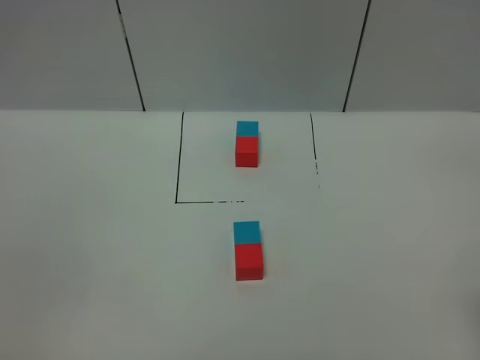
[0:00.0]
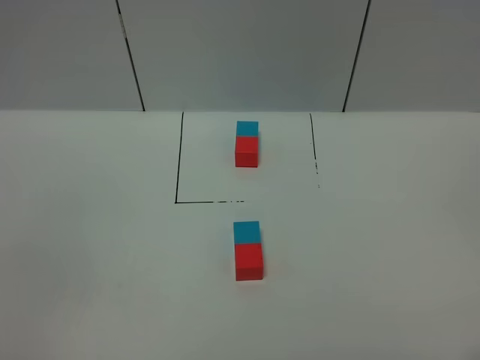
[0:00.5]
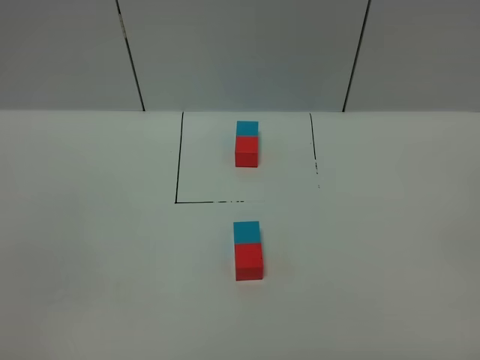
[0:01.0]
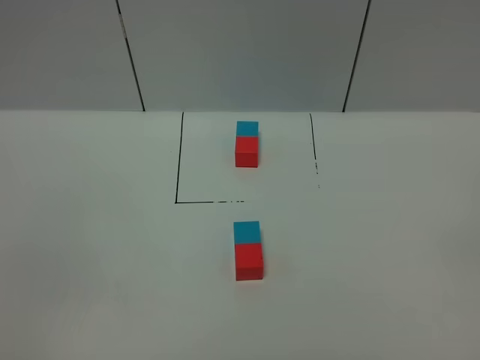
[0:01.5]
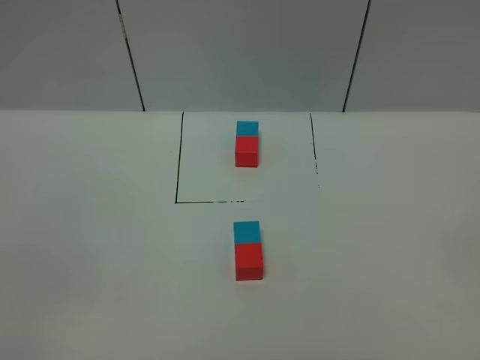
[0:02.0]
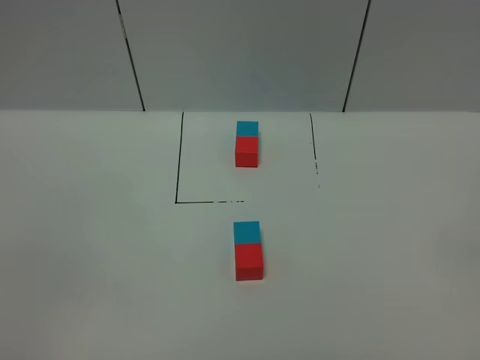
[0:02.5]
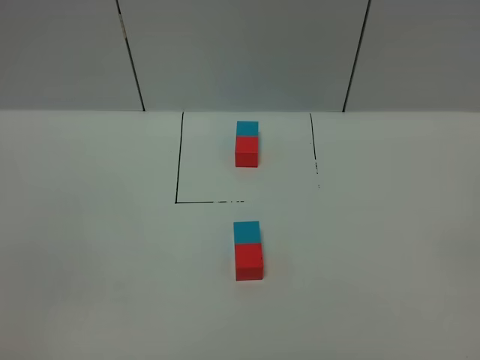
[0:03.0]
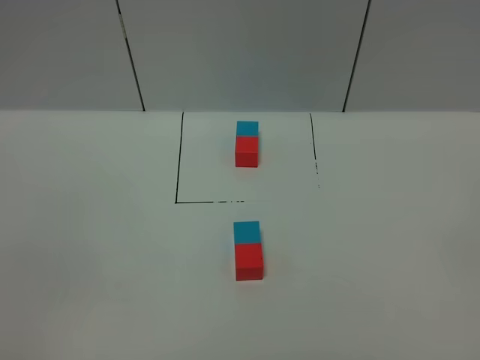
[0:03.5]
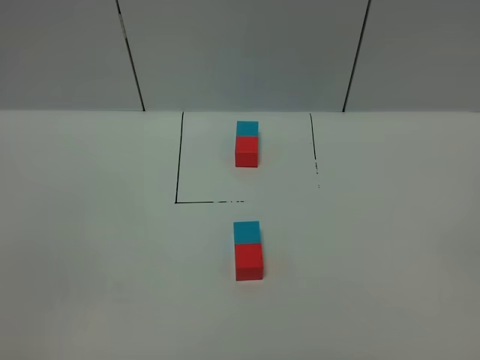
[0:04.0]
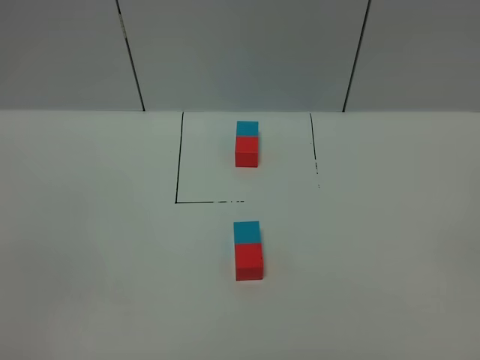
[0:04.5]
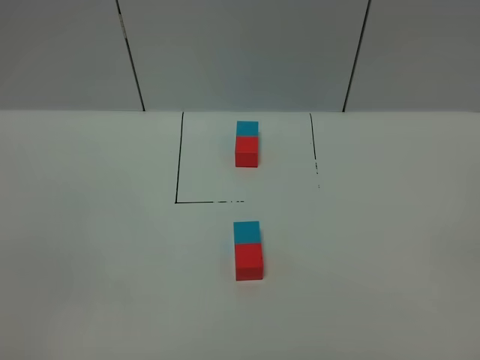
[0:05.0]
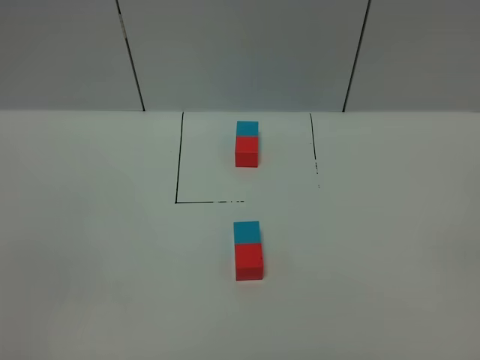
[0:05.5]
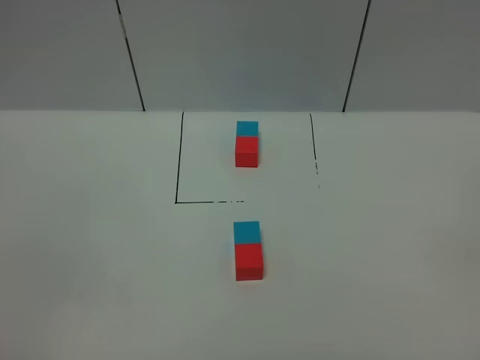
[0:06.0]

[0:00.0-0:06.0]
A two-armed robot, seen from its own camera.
Task of the whole recording: According to the building block template in front, assemble the scattered blocks together.
0:02.0 to 0:06.0: Both grippers stay put.

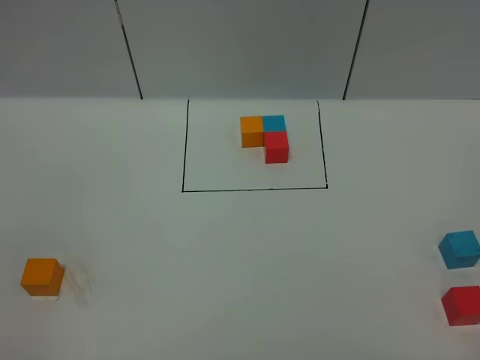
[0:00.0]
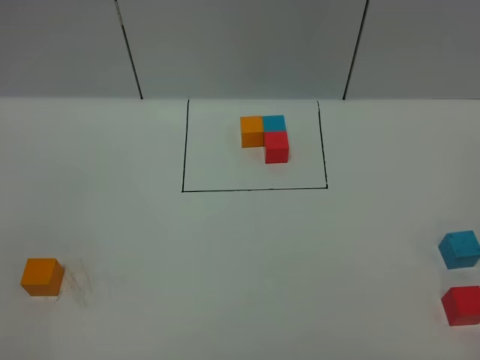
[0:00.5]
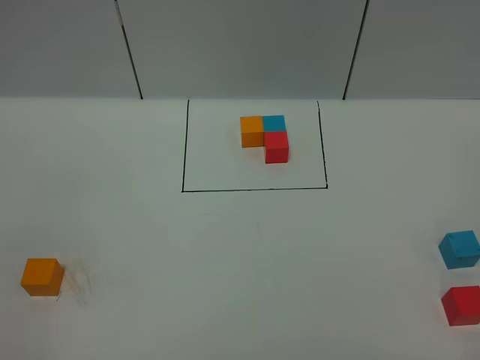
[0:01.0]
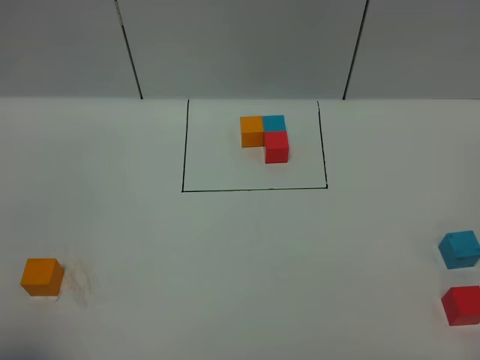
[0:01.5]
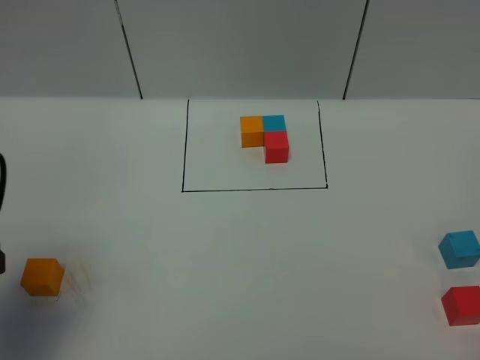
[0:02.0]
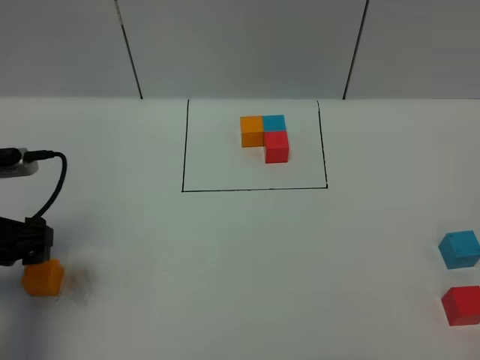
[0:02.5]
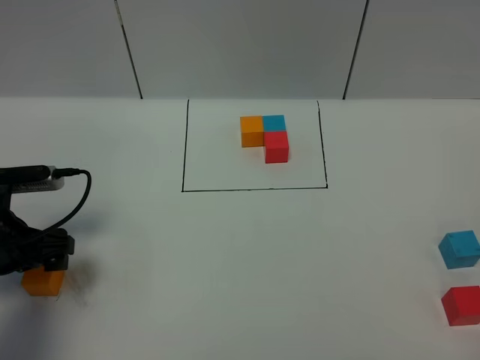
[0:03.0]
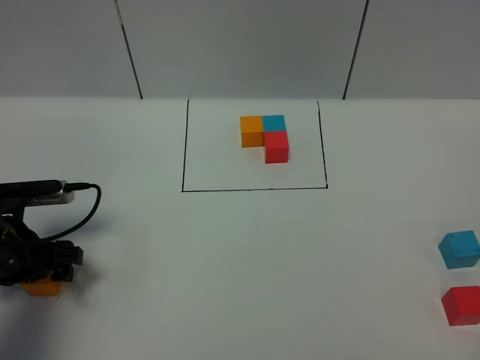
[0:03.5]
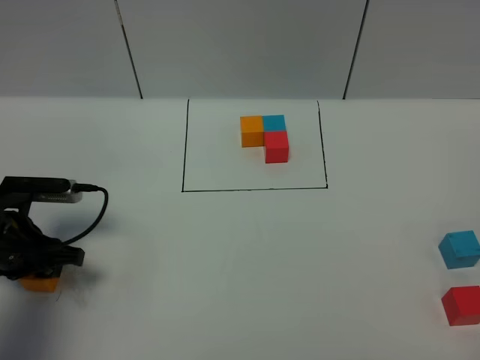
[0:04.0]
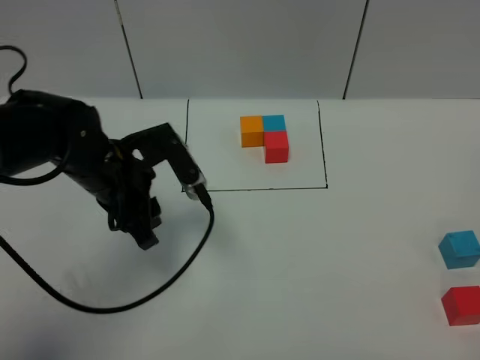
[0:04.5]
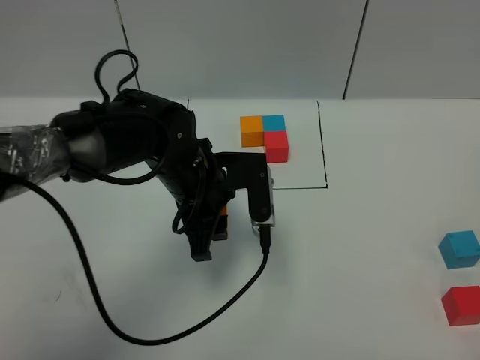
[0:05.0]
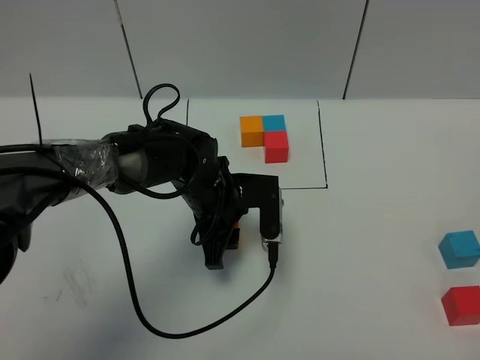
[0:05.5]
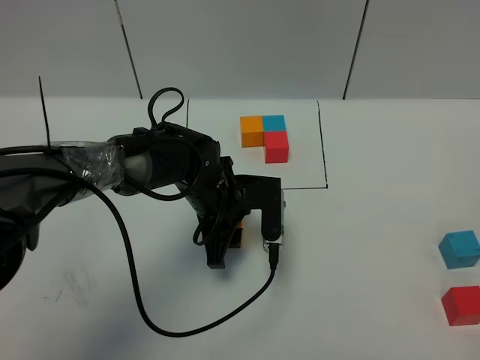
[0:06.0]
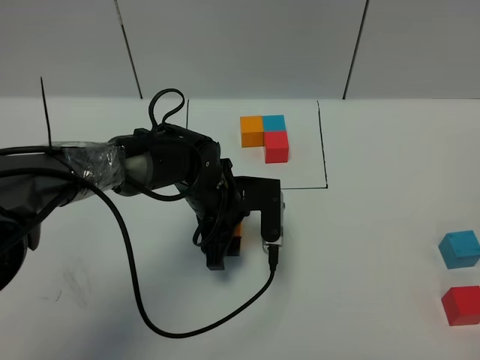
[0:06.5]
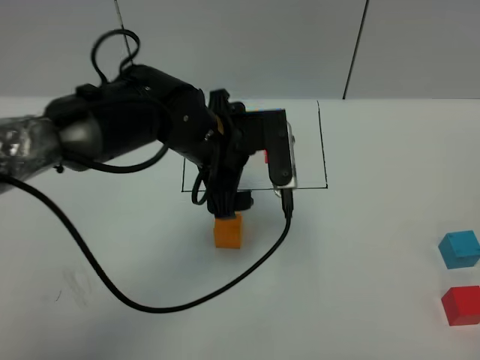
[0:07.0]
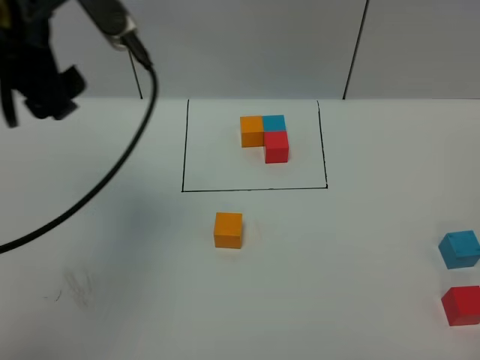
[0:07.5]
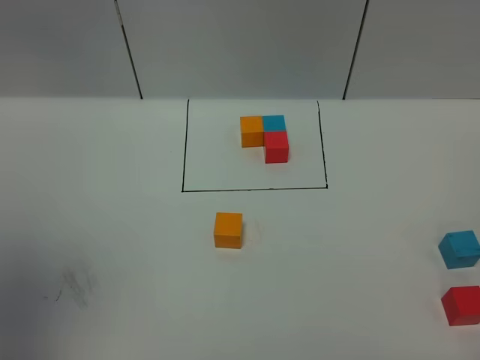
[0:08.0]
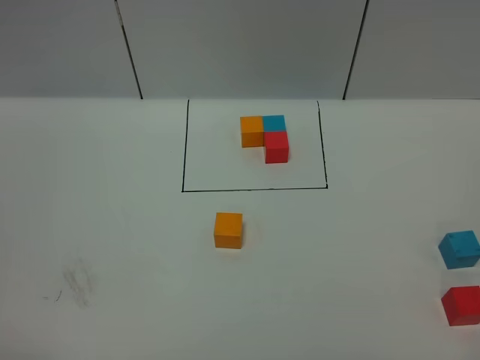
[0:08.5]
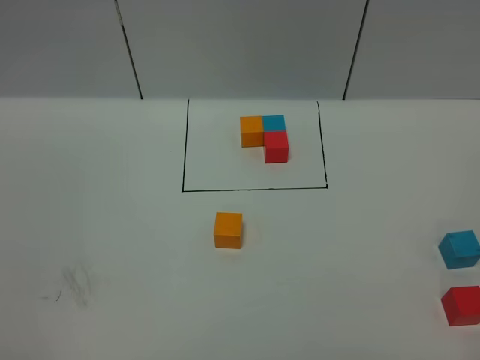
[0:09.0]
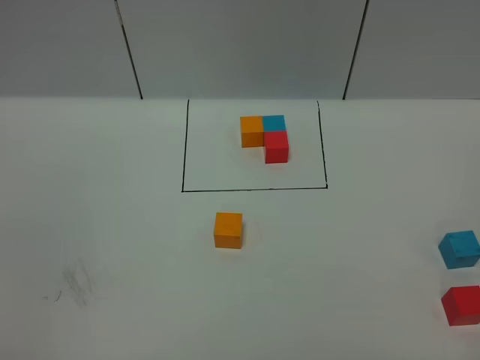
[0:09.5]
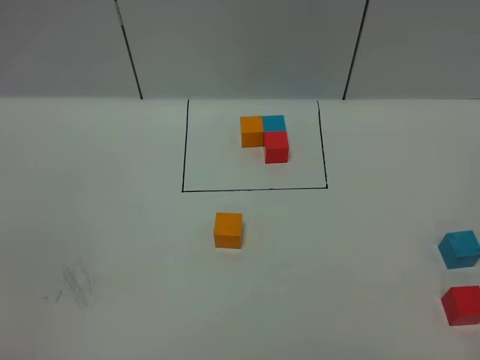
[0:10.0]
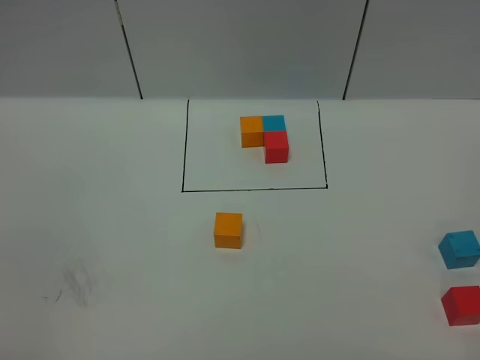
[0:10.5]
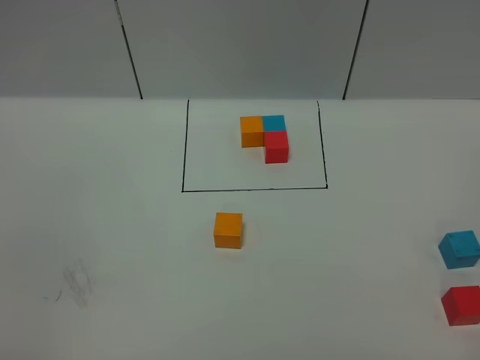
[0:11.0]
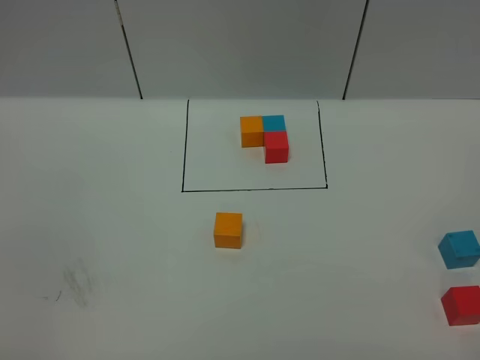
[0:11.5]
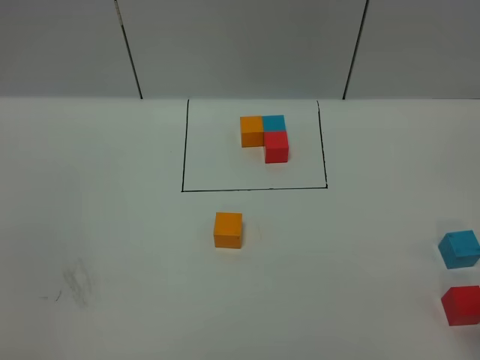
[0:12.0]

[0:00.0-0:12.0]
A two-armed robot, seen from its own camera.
Task of the whole recording: According to the building block template in front, assemble the scattered blocks together.
Step, 0:02.0 to 0:07.0: Put the orange cube in the center of the table.
0:00.0 to 0:02.0: The left gripper is displaced forward by approximately 20 cm, and opens up.
0:02.0 to 0:04.0: The left gripper goes roughly 20 cm downward and forward, and closes up.
0:04.0 to 0:06.0: The left gripper heads to the right, covering roughly 25 cm.
0:06.0 to 0:08.0: The left gripper heads upward, to the left and backward, covering about 50 cm, and opens up.
0:08.0 to 0:10.0: The left gripper heads downward and backward, covering some 25 cm.

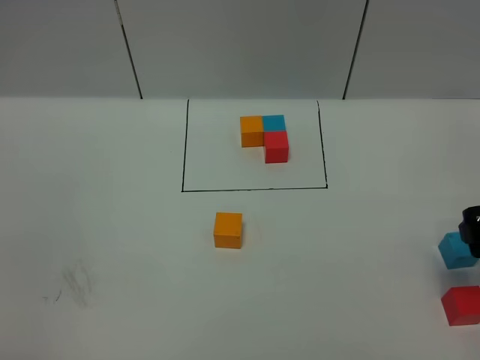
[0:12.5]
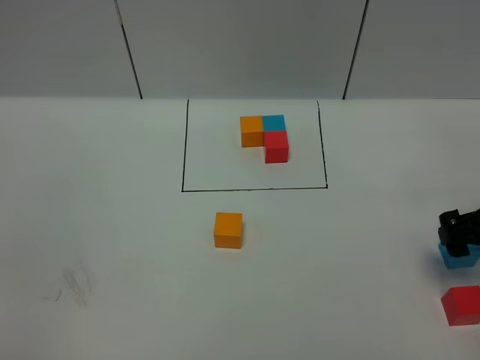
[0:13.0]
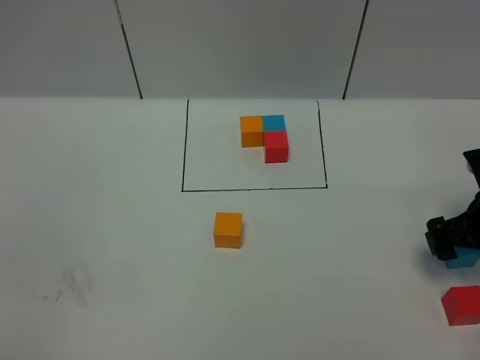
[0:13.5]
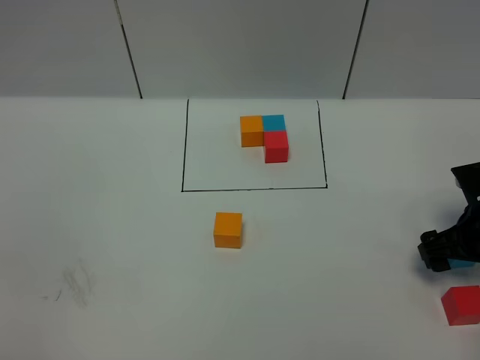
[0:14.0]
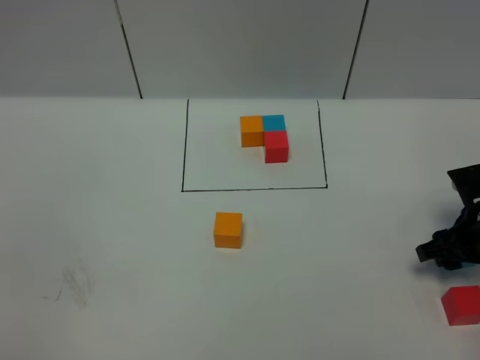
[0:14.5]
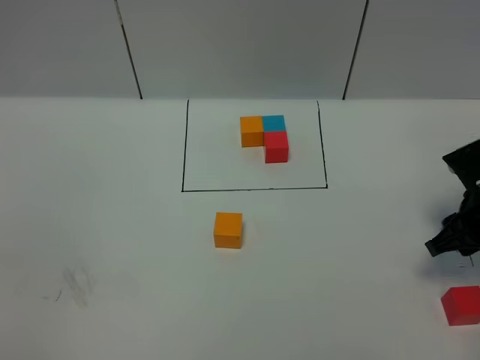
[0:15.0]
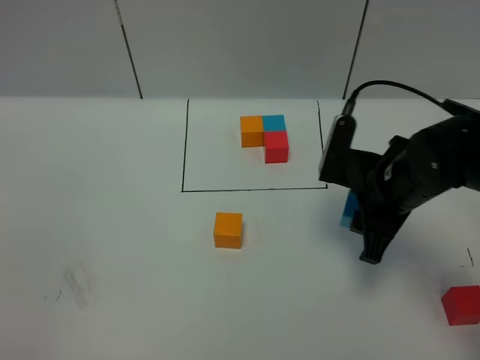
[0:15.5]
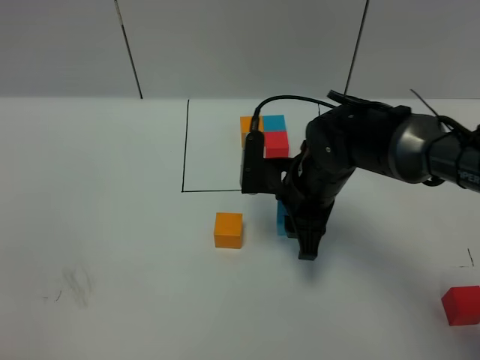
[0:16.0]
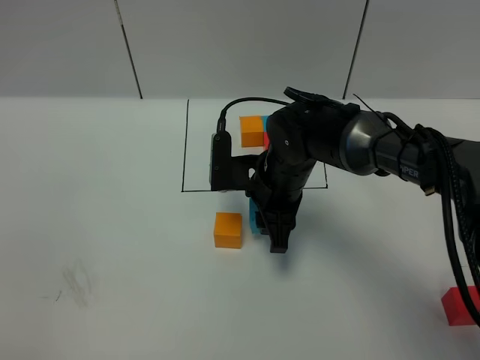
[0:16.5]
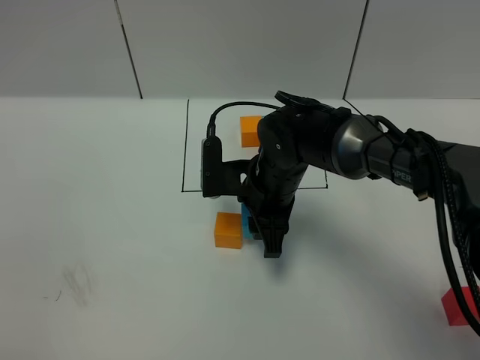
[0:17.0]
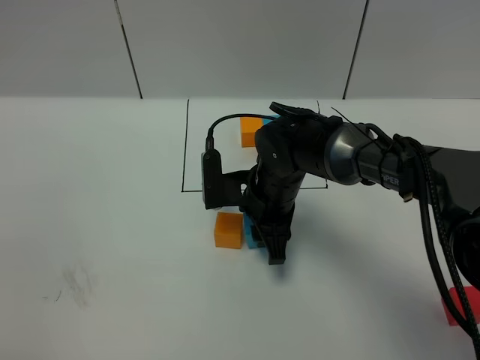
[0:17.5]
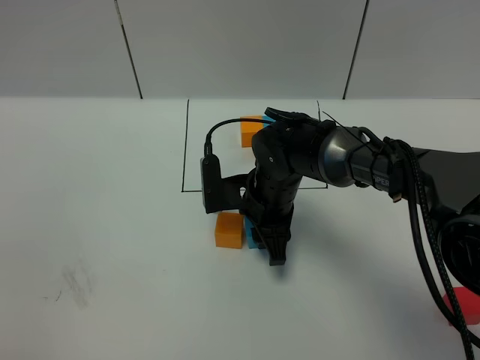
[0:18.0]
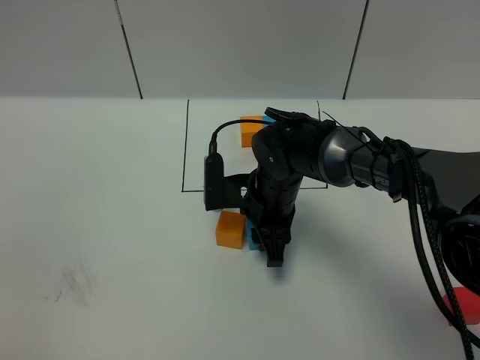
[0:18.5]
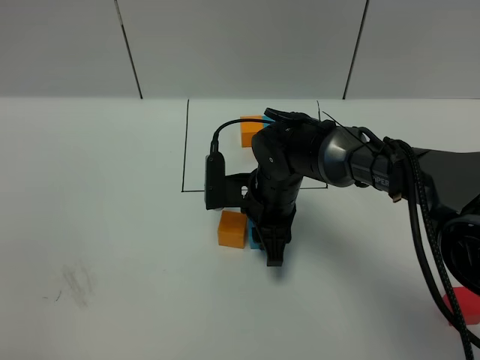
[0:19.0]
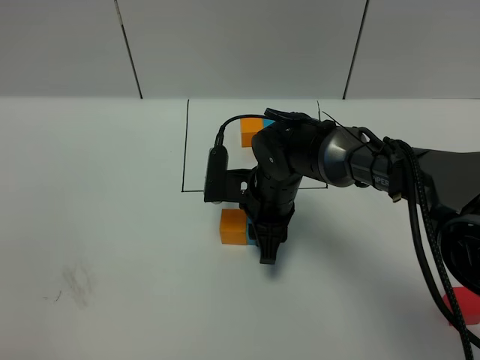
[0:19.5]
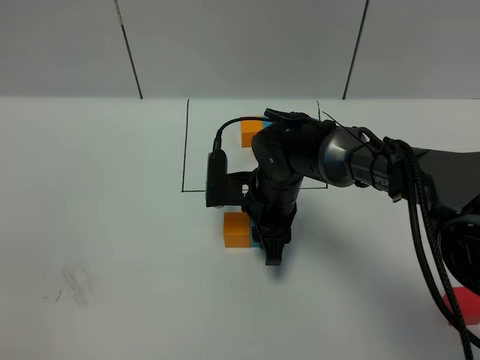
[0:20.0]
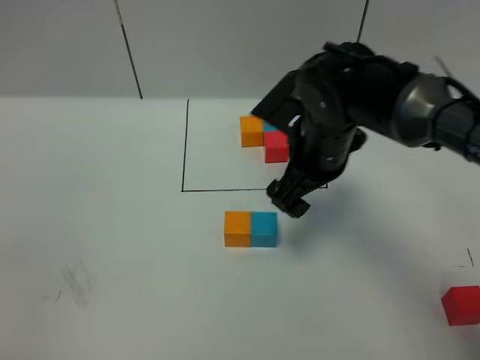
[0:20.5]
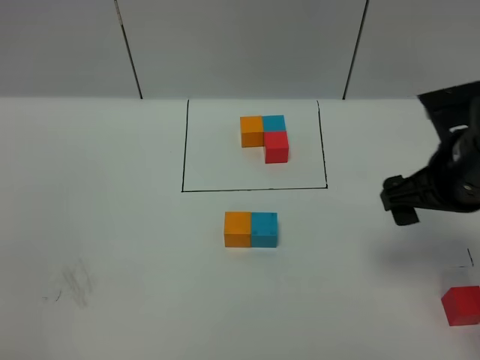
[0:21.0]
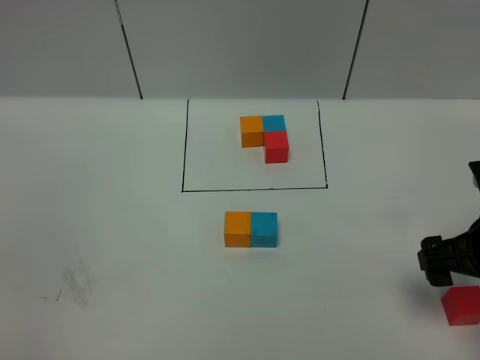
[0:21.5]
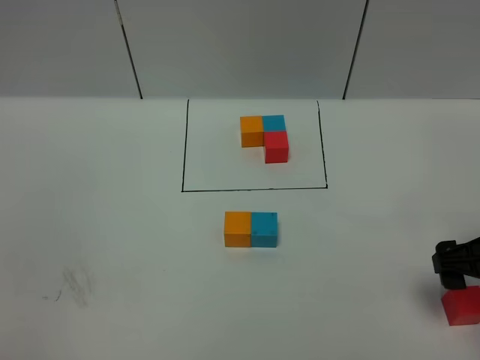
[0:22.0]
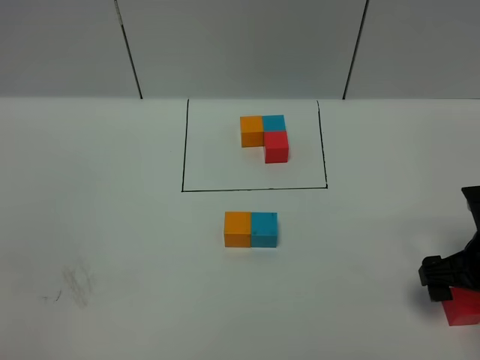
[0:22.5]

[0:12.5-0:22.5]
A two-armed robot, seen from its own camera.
Task of the whole recording: According to the building block template in front, assemble the scattered blocks together.
Step, 0:12.5 to 0:20.5: Put the blue cube on the right of the orange cube.
0:12.5 to 0:14.5: The right gripper moves downward and forward, about 15 cm, and closes up.
0:14.5 to 0:16.5: The right gripper is displaced to the left by roughly 25 cm.
0:16.5 to 0:18.5: The grippers make only small movements.
0:18.5 to 0:20.5: The right gripper is displaced upward and to the right by roughly 10 cm, and opens up.
0:20.5 to 0:22.5: The right gripper heads to the right and backward, covering some 20 cm.
